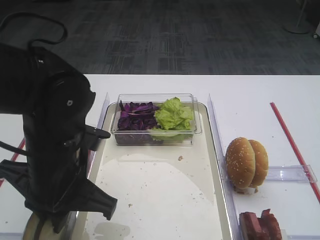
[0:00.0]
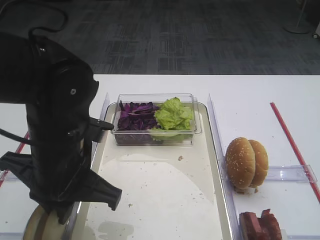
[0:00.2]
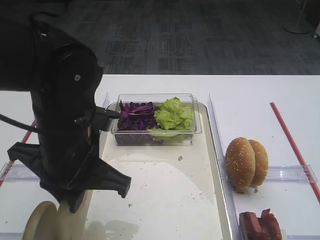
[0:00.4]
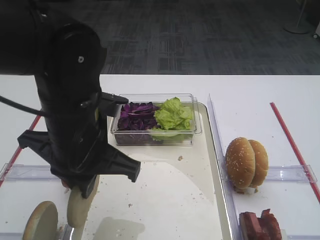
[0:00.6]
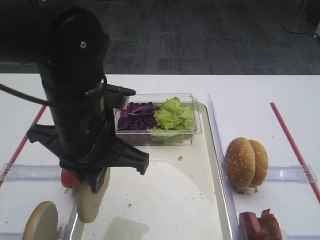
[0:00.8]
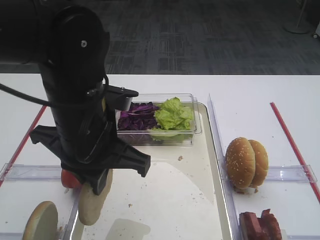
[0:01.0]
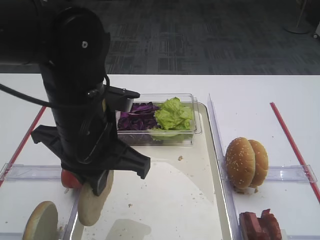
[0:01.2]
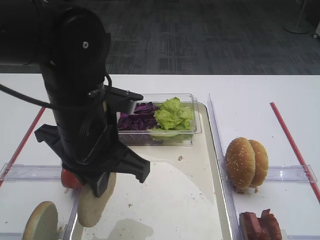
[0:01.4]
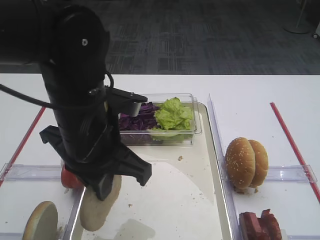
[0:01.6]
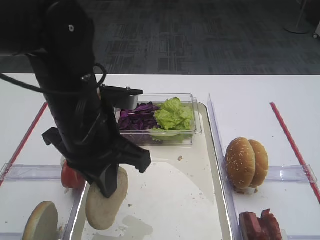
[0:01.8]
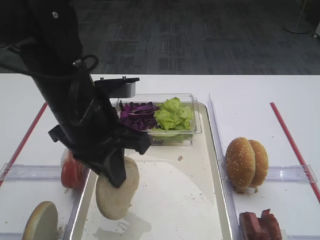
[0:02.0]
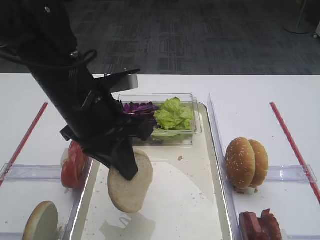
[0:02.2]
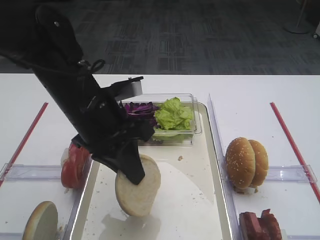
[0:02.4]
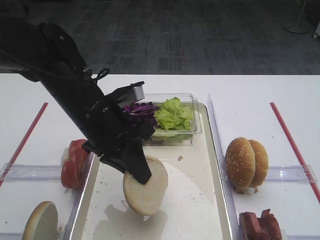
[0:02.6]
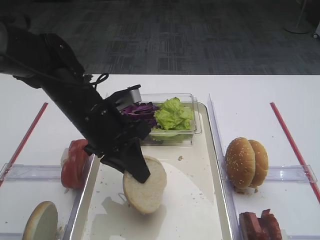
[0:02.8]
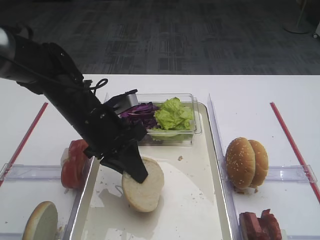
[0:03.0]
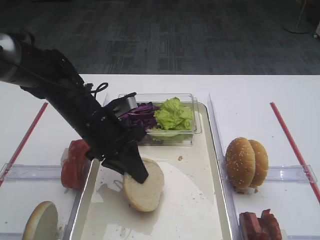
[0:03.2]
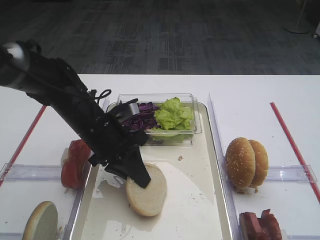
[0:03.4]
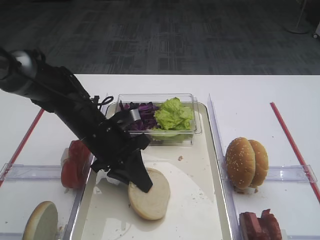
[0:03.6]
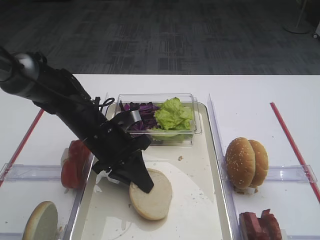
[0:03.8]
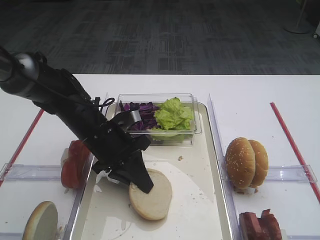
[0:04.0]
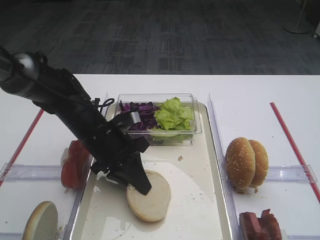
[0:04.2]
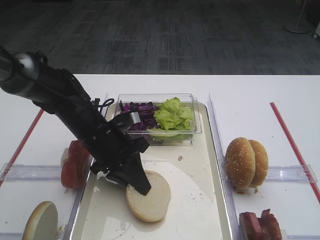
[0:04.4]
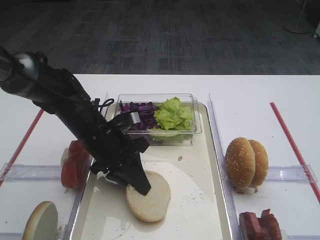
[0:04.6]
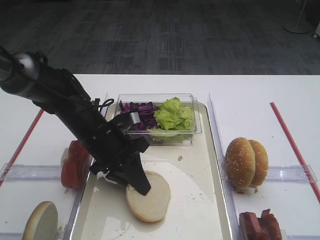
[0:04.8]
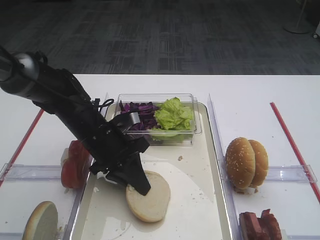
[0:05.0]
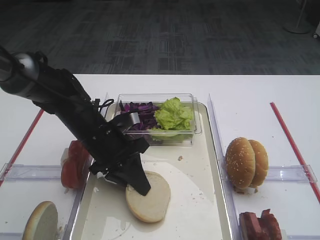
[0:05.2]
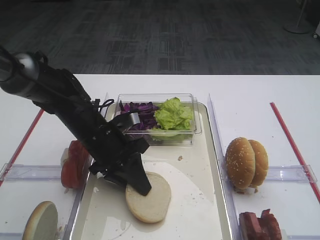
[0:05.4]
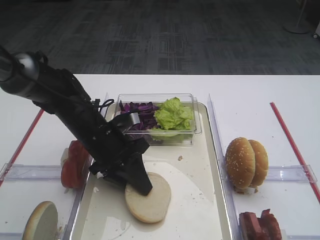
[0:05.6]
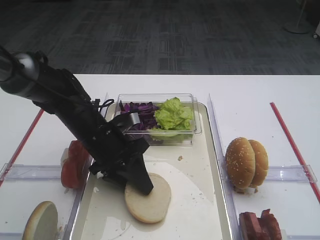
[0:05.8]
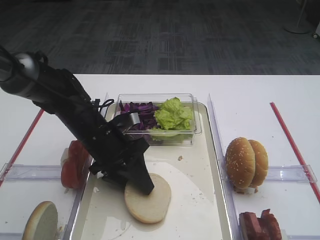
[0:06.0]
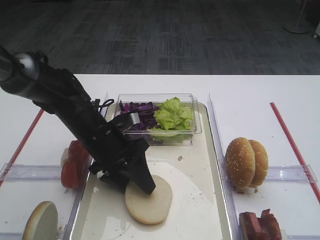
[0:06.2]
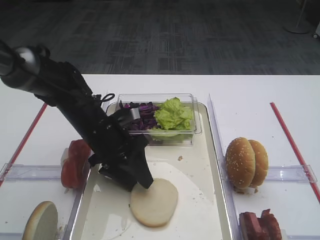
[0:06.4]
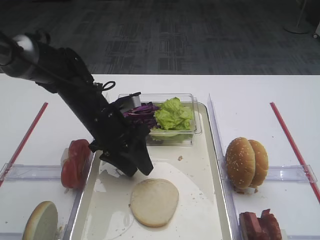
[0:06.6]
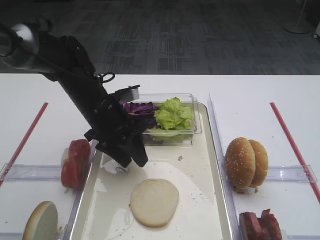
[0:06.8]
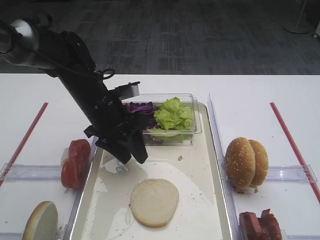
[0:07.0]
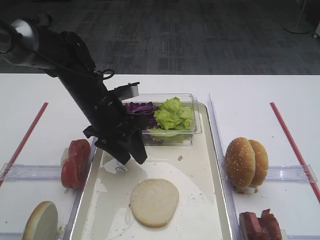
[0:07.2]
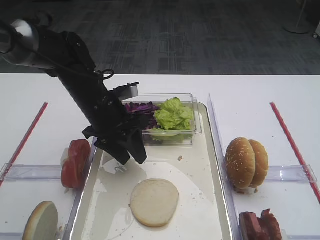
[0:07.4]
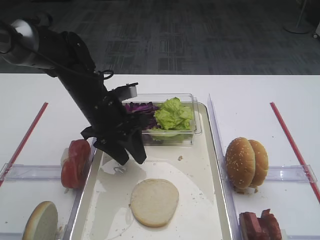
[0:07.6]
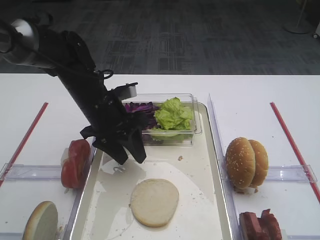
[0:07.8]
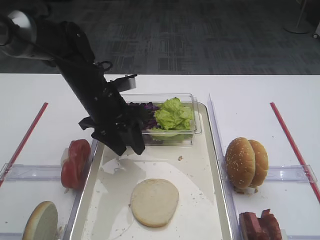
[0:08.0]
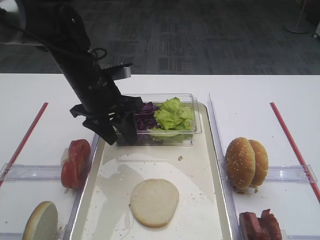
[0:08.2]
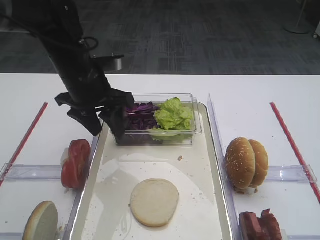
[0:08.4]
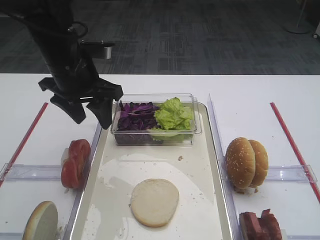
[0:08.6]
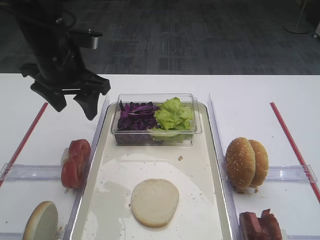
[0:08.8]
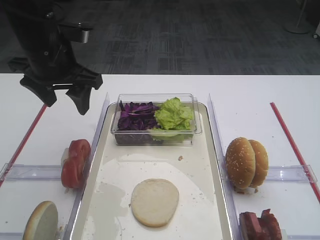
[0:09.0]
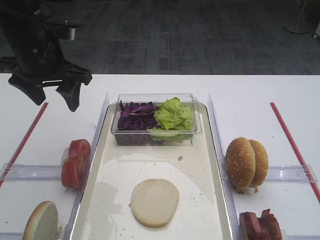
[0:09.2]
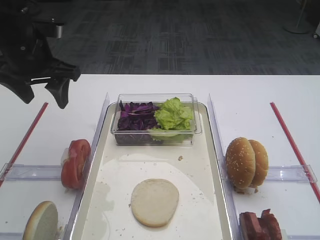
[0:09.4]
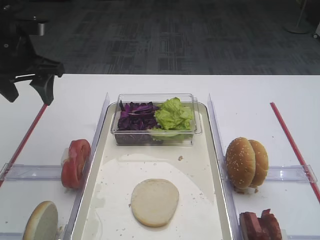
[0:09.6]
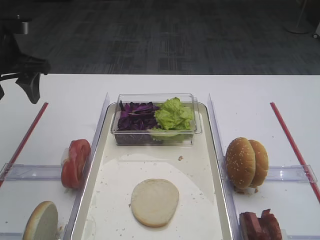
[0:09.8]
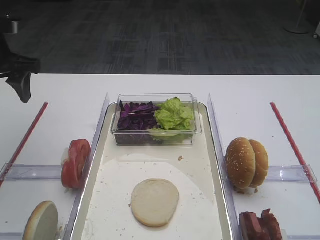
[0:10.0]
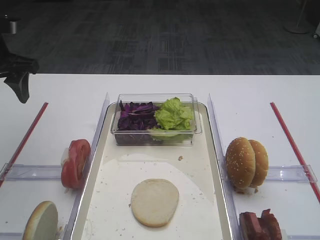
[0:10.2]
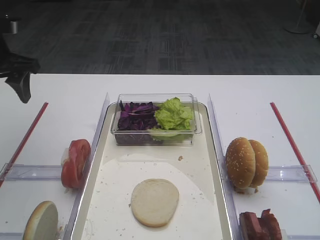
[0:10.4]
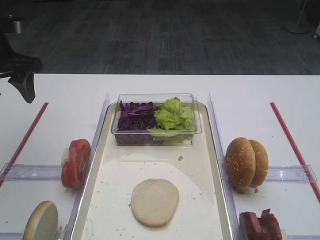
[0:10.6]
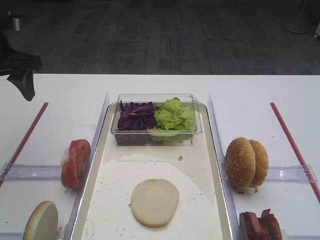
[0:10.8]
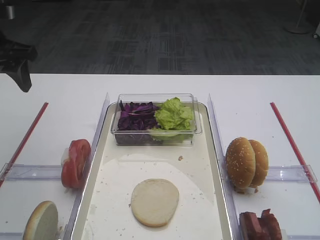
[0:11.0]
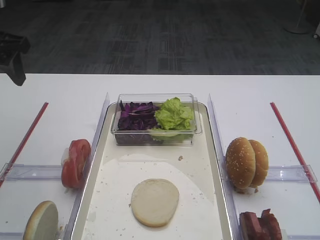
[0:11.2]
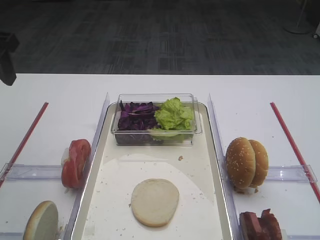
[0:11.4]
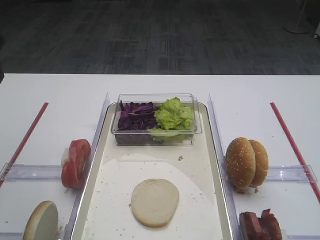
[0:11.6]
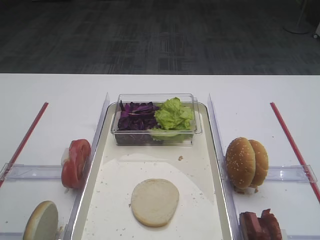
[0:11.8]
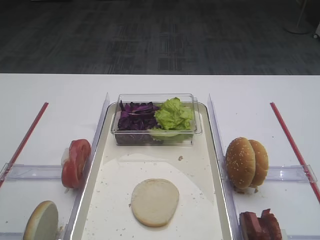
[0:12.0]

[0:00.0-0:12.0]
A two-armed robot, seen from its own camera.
Step, 0:00.6 to 0:07.8: Place the bread slice on the tray with the left gripper.
0:00.0 to 0:01.6: The left gripper ends up roughly 5 cm from where it was.
0:01.6 to 0:03.0: The left gripper goes roughly 10 cm forward and downward.
0:03.0 to 0:04.4: The grippers move only a little.
0:04.4 to 0:06.0: The left gripper opens up.
0:06.0 to 0:07.6: The left gripper changes place by approximately 5 cm.
0:07.6 to 0:09.0: The left gripper moves upward and to the left, approximately 15 cm.
0:09.0 to 0:10.4: The left gripper moves to the left, roughly 10 cm.
0:10.4 to 0:12.0: The left gripper travels backward and upward by roughly 20 cm.

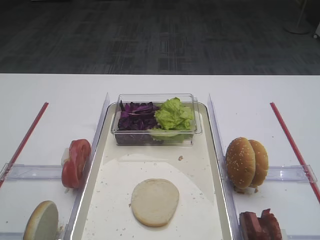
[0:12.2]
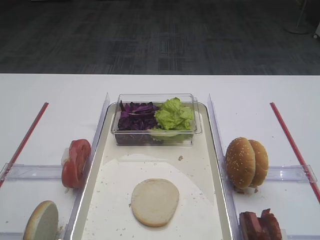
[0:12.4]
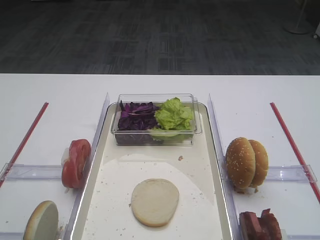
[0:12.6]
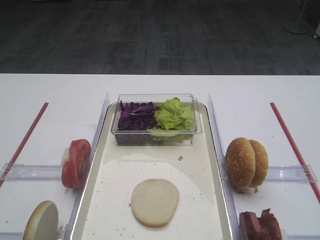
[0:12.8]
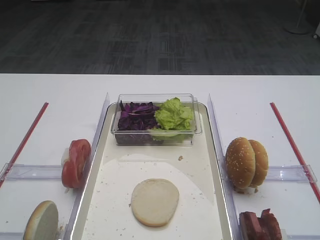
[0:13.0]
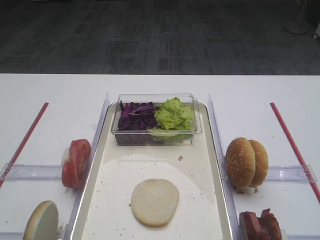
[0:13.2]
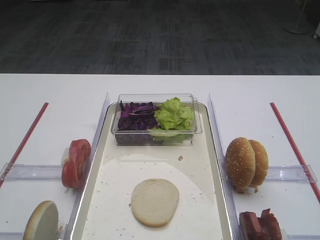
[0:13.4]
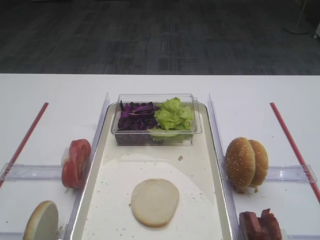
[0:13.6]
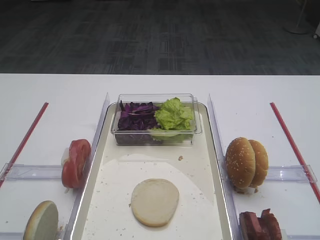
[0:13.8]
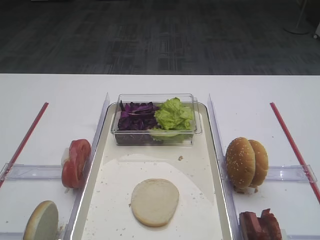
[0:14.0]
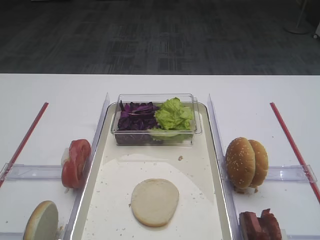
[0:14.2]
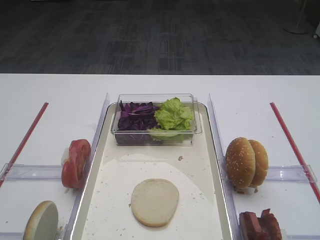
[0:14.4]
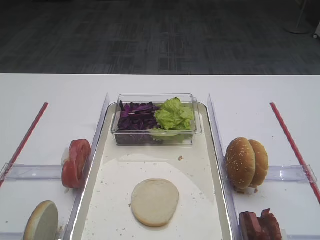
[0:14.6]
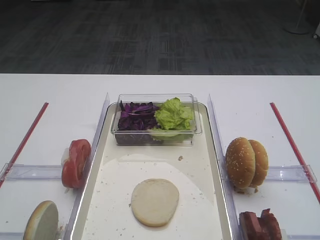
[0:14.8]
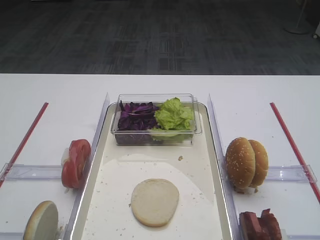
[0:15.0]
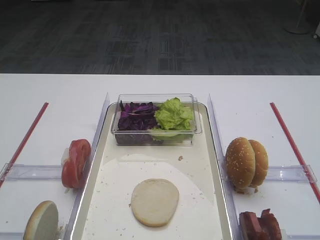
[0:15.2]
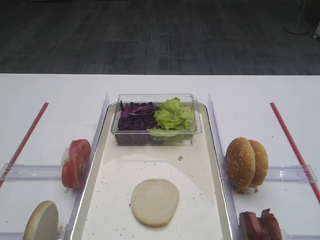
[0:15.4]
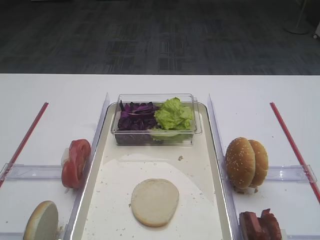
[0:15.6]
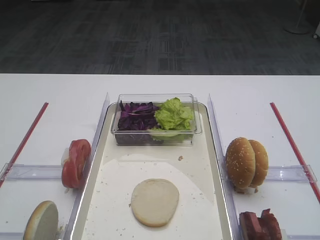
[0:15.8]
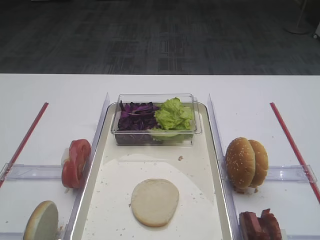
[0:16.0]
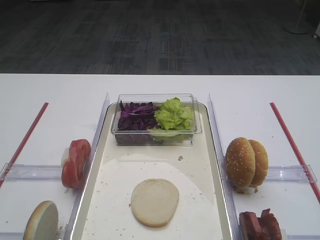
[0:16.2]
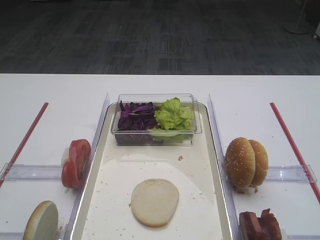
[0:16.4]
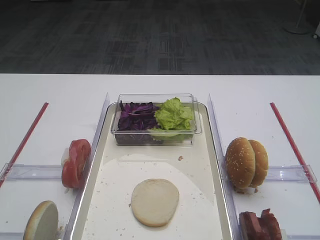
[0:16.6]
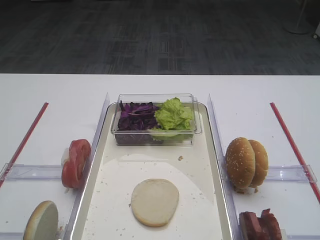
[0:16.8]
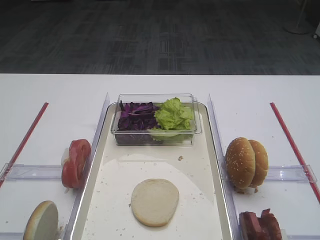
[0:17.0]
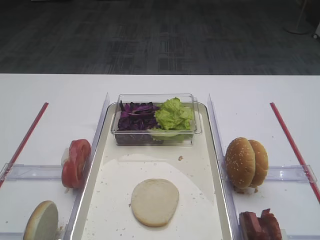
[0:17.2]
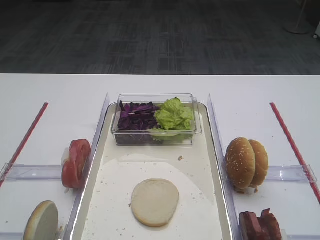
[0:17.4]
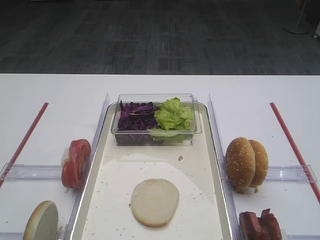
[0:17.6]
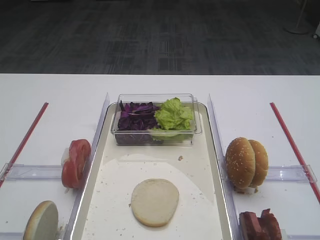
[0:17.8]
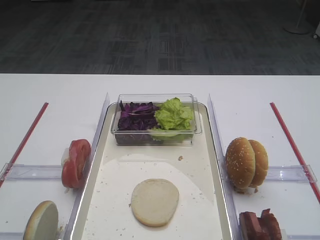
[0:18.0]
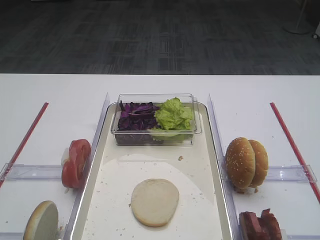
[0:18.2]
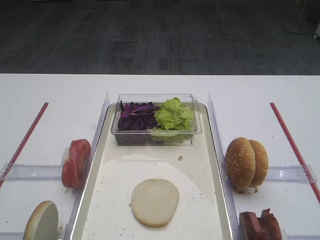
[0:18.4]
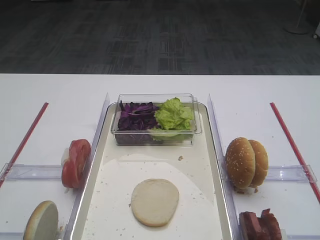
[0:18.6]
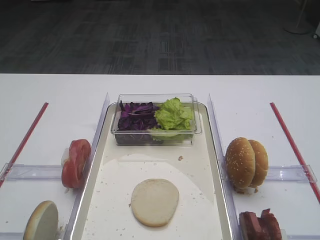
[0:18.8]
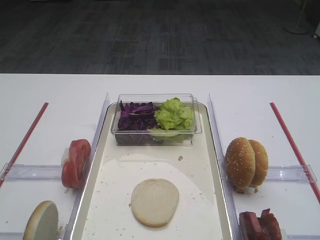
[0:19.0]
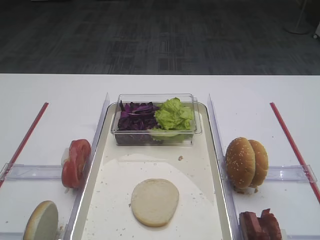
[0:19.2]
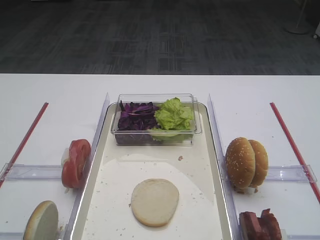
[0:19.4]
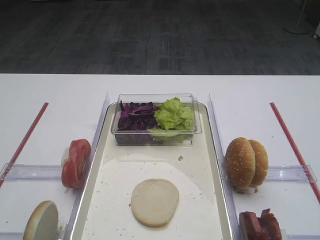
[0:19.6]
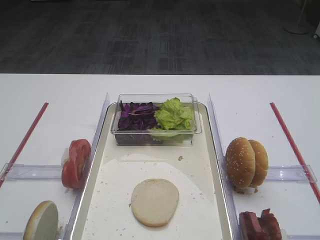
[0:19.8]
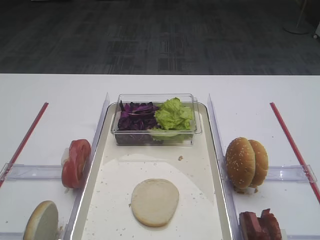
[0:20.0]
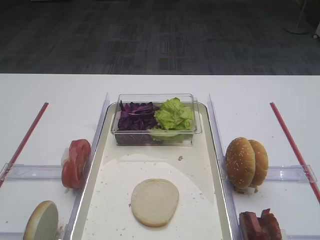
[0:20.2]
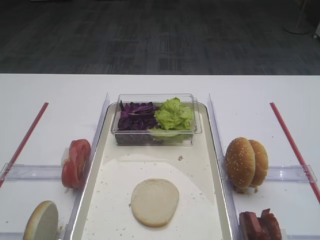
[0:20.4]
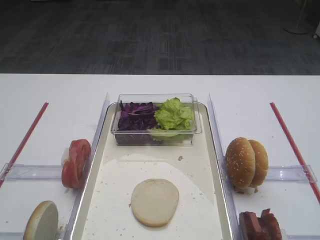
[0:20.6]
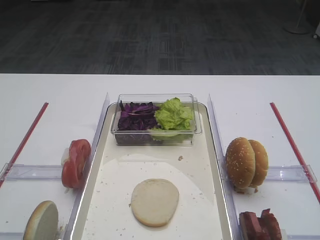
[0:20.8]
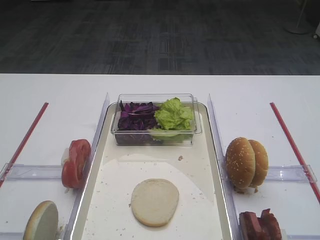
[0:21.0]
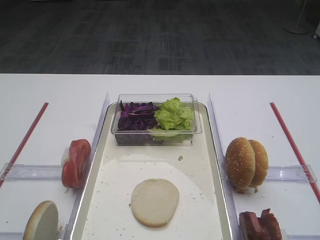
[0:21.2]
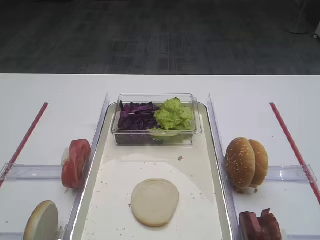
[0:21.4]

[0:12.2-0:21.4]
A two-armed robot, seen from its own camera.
0:15.2 to 0:21.4: The two grippers keep their place.

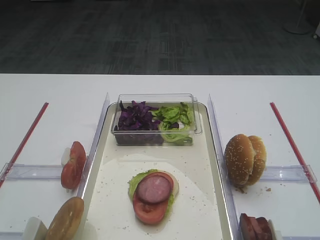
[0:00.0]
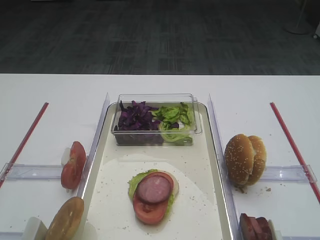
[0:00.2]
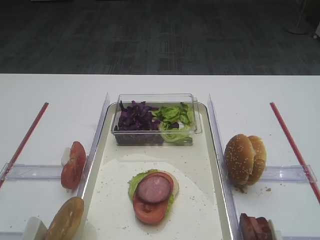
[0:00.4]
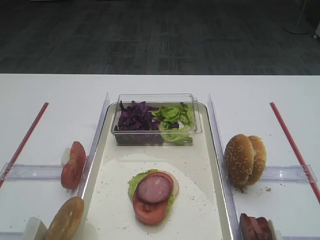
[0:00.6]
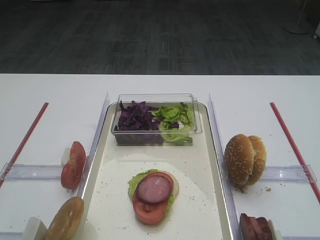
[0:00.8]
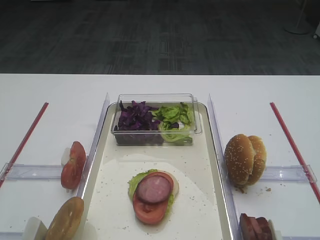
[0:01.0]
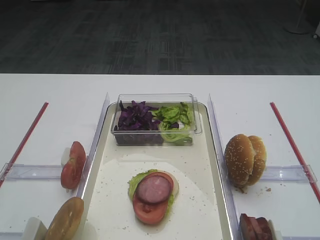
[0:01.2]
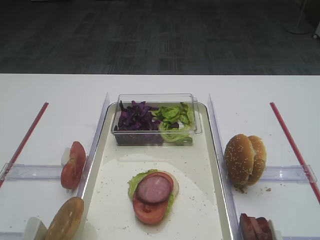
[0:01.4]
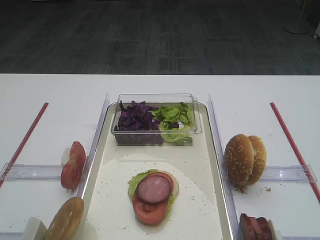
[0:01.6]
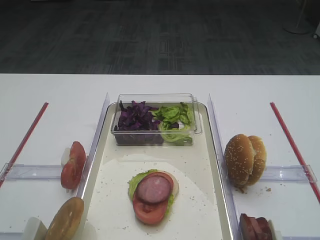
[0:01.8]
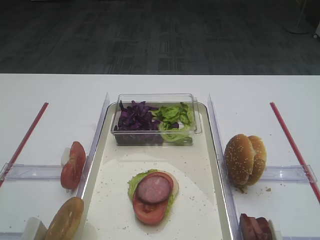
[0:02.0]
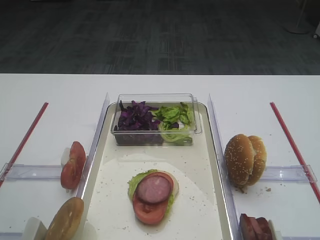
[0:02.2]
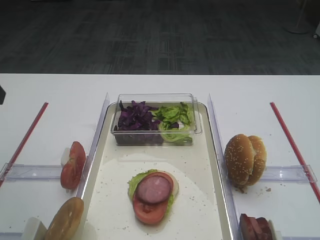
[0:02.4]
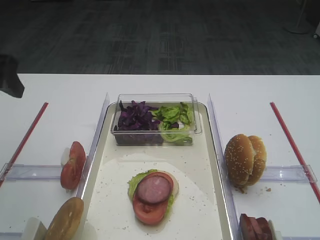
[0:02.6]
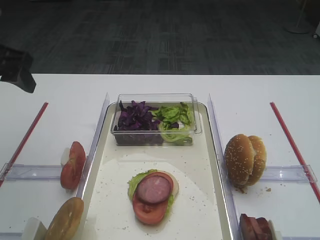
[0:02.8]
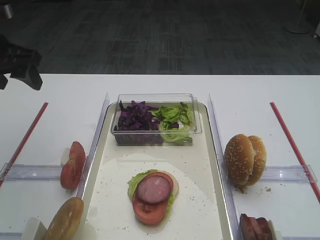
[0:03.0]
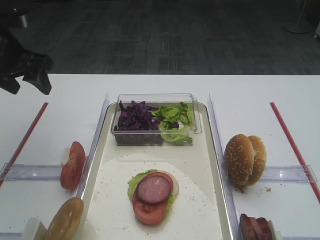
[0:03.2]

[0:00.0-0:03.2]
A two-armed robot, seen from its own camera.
0:01.6 to 0:03.2: The left gripper moves forward, approximately 35 cm.
